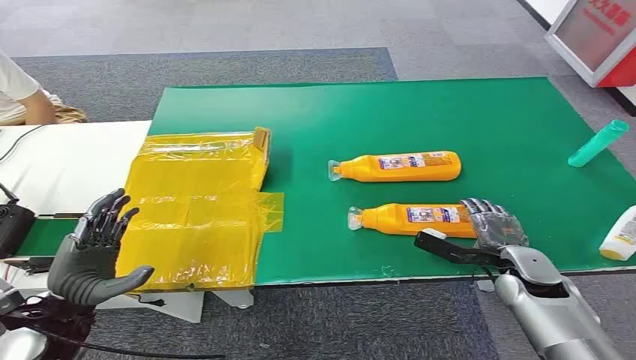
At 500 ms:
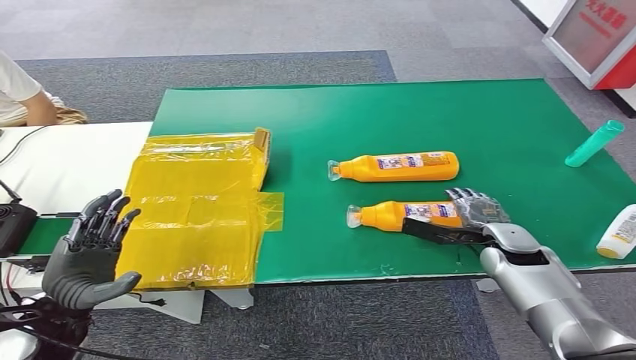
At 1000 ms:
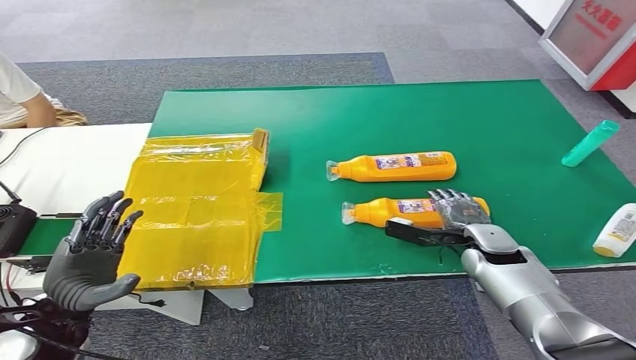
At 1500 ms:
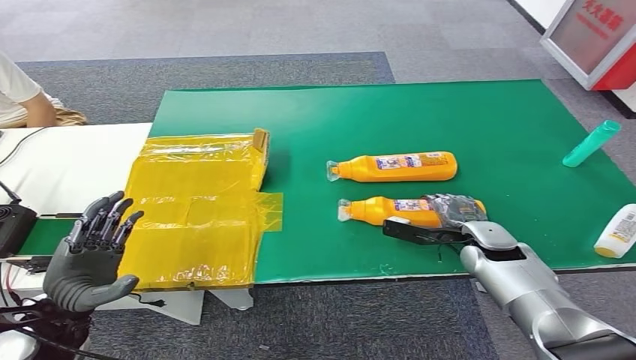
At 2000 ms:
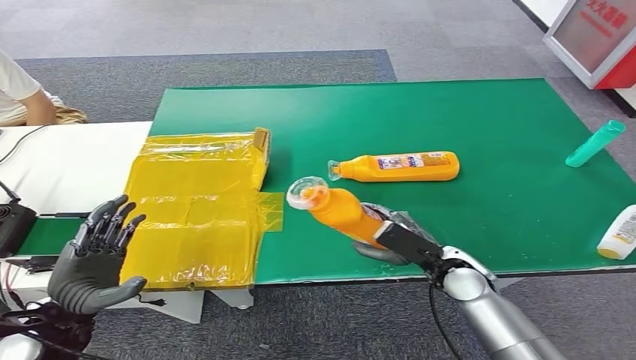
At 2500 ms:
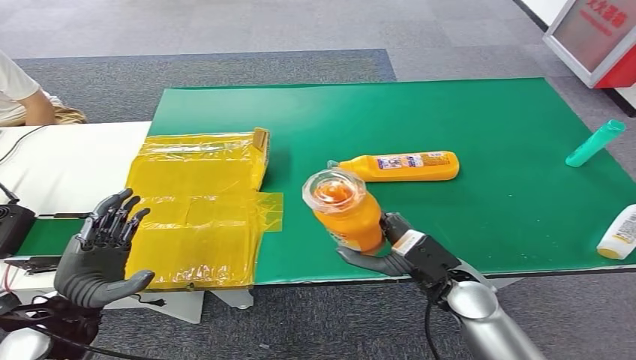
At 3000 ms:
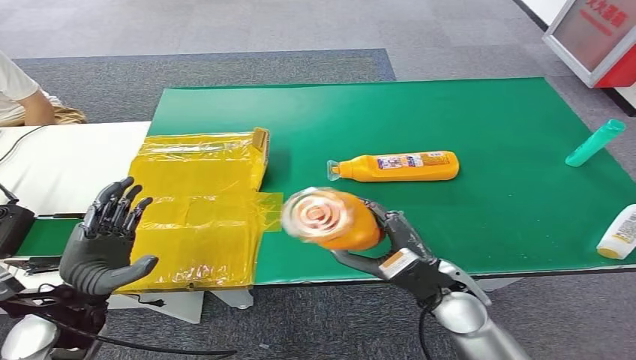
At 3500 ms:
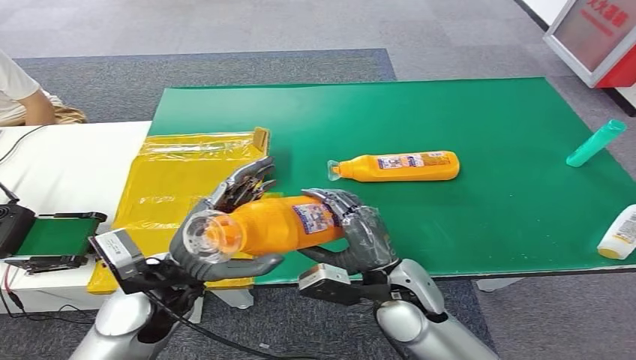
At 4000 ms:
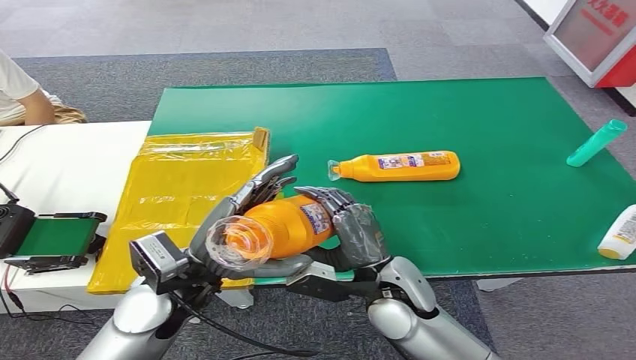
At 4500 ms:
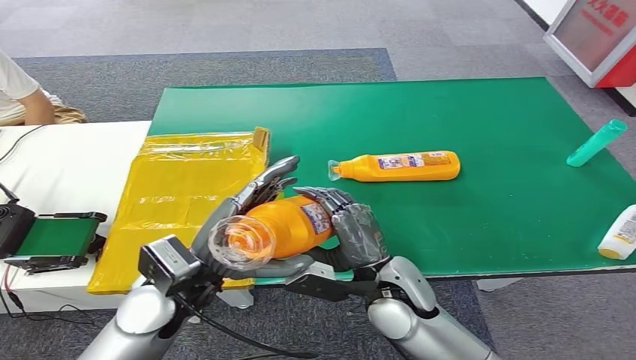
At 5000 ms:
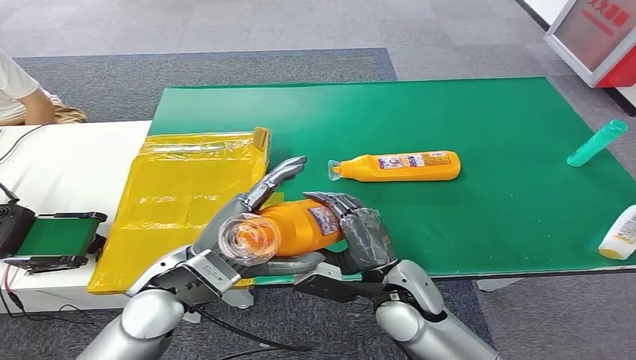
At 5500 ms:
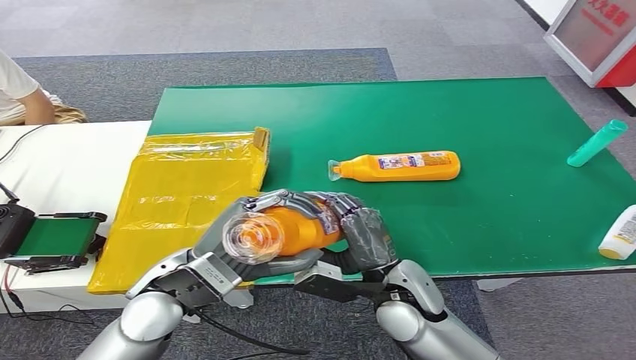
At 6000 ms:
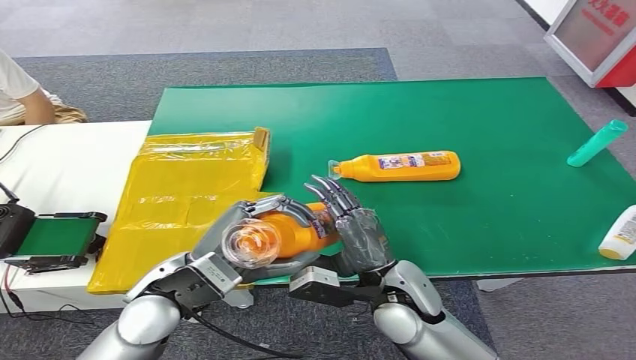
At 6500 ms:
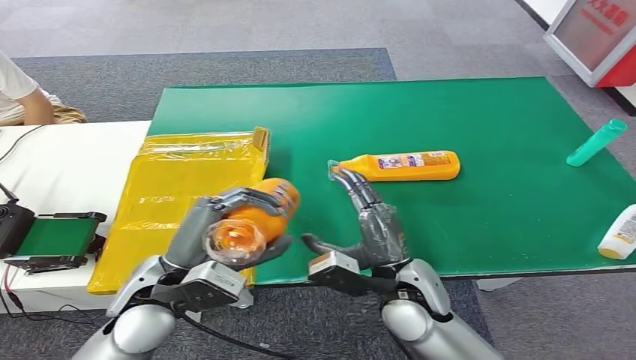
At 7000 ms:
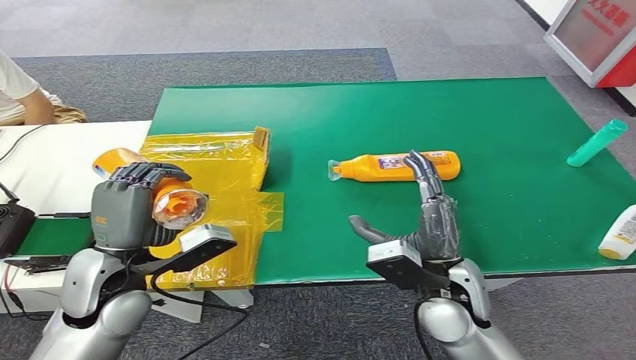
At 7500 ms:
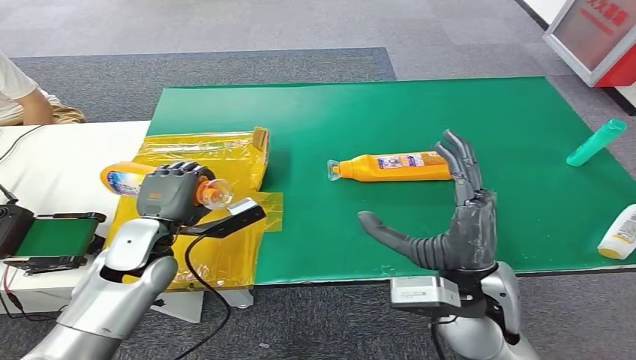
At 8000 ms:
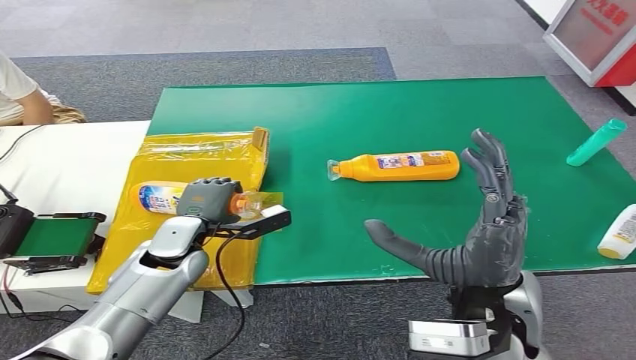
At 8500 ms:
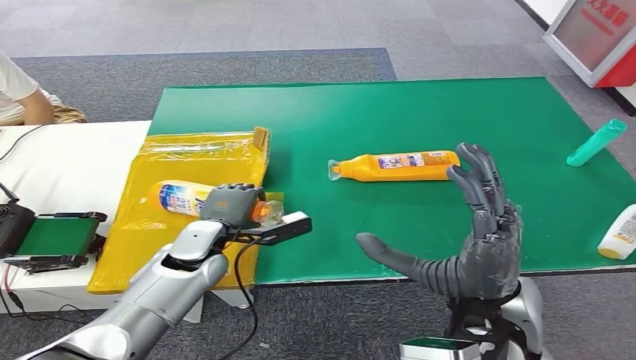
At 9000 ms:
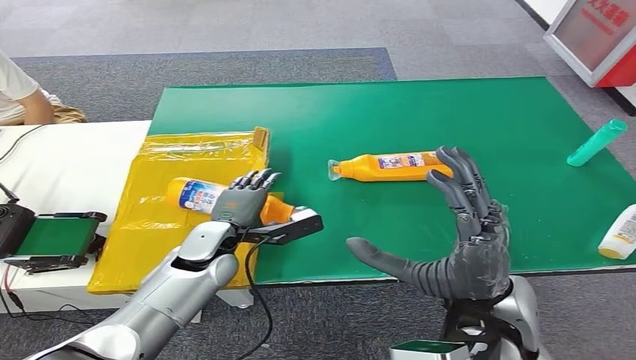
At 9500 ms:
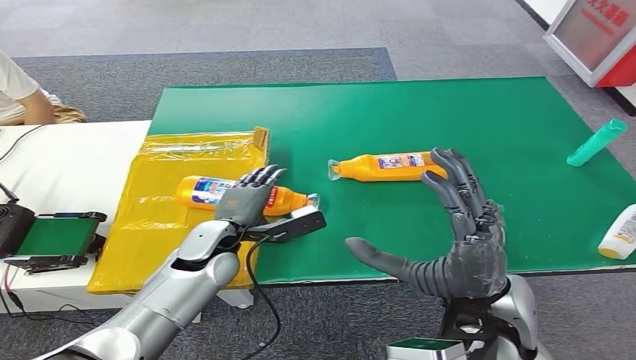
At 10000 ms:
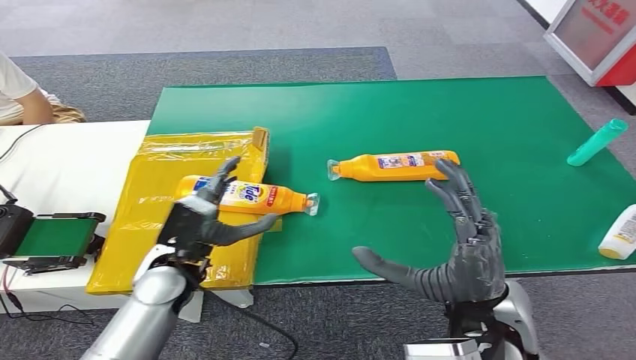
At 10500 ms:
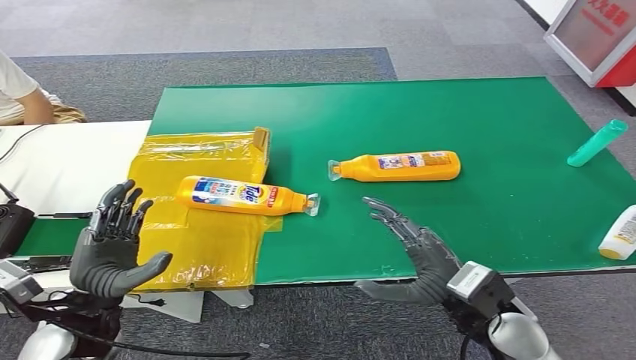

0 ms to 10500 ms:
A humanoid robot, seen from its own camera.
Step, 0 ms to 2500 ms: Pick up the bottle from the table.
Step, 4500 ms to 10500 ms: Turn the bottle to the front side.
6500 ms to 8500 ms: The right hand goes about 10 cm upward and to the right. Meanwhile the left hand travels forward and downward by some 15 cm.
8500 ms to 10500 ms: The left hand shifts some 15 cm backward and to the left; the right hand goes about 10 cm downward.

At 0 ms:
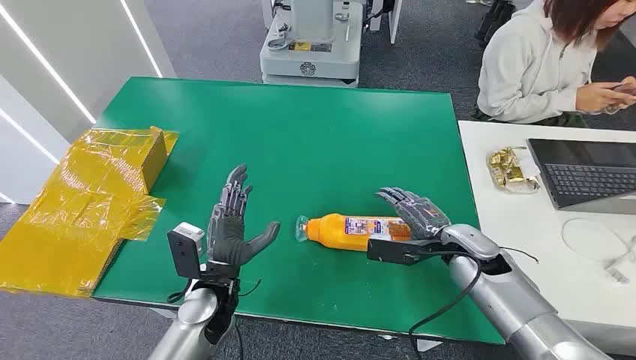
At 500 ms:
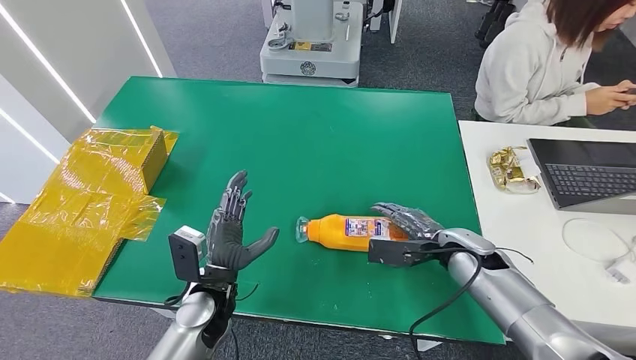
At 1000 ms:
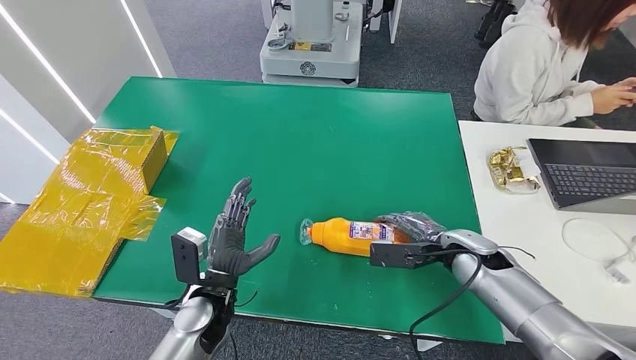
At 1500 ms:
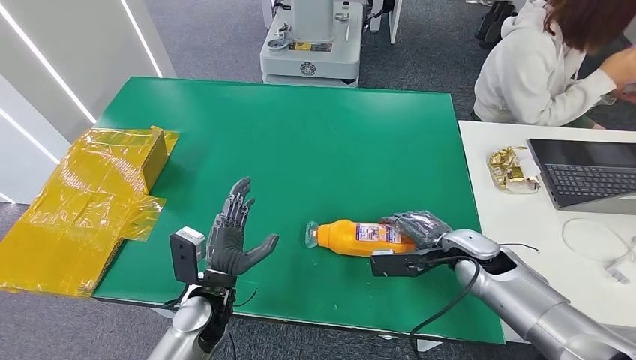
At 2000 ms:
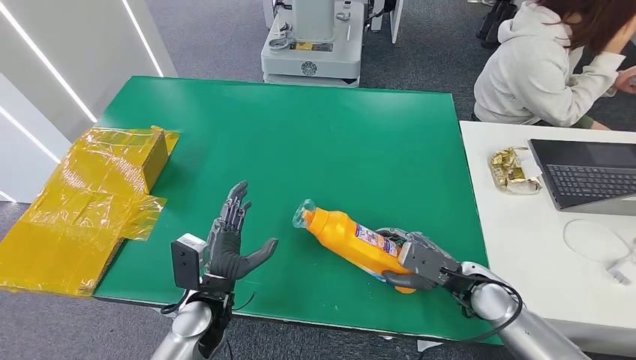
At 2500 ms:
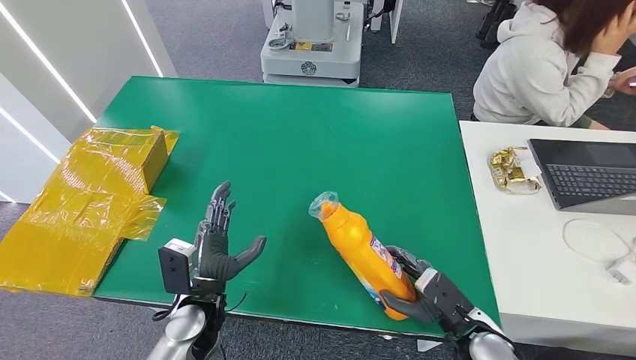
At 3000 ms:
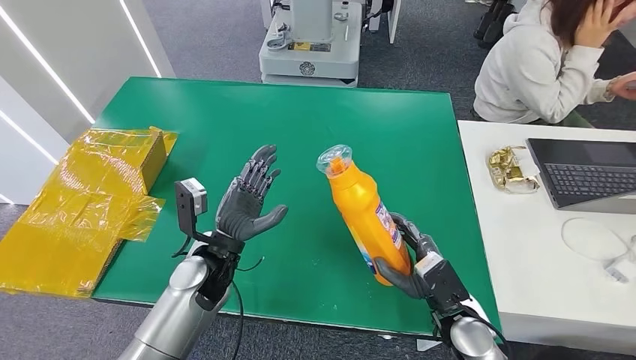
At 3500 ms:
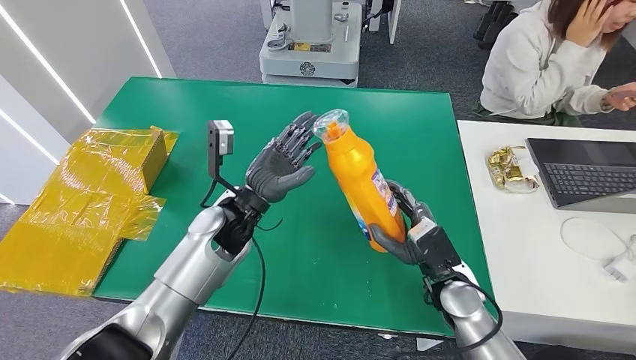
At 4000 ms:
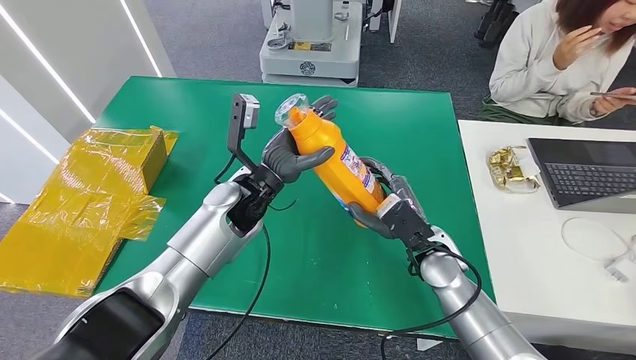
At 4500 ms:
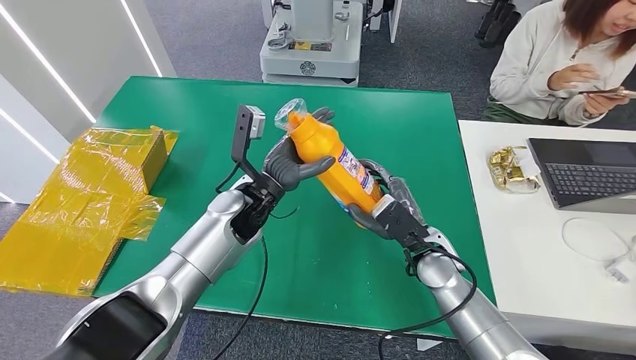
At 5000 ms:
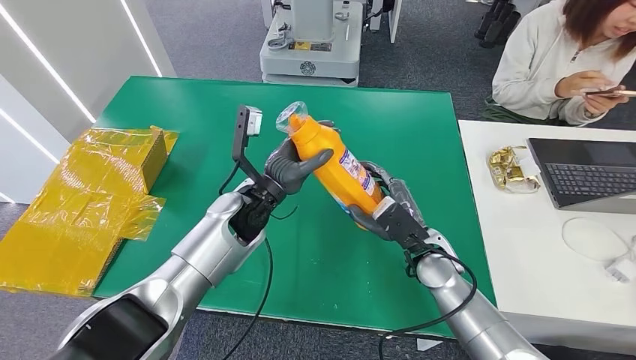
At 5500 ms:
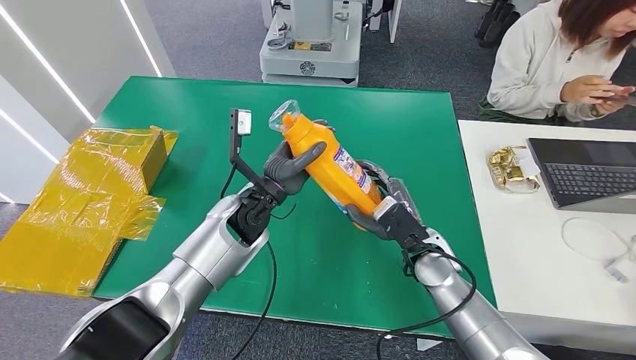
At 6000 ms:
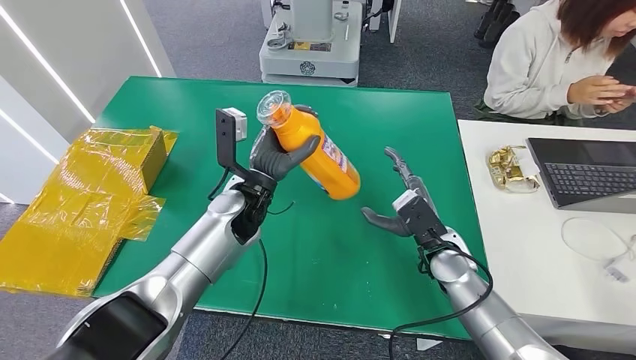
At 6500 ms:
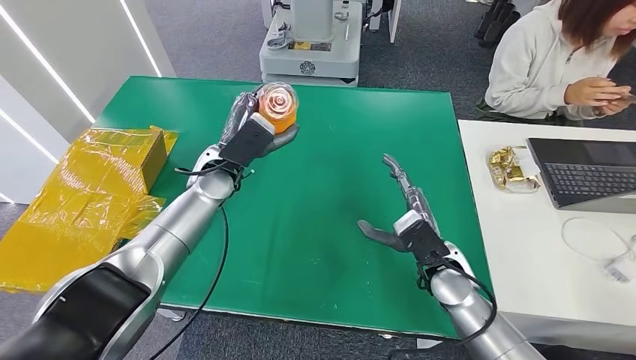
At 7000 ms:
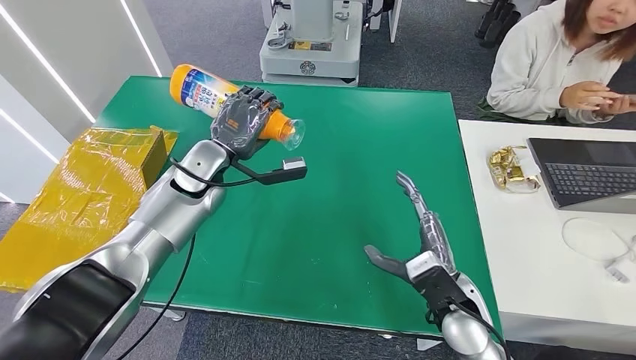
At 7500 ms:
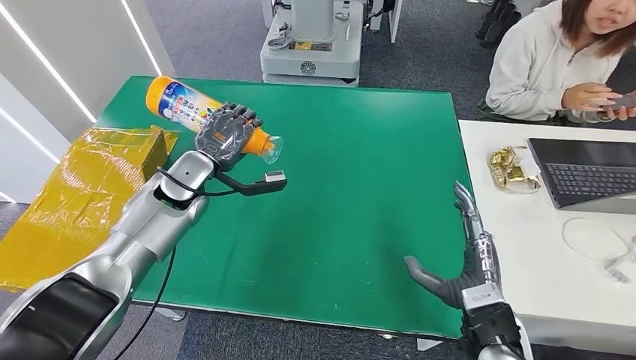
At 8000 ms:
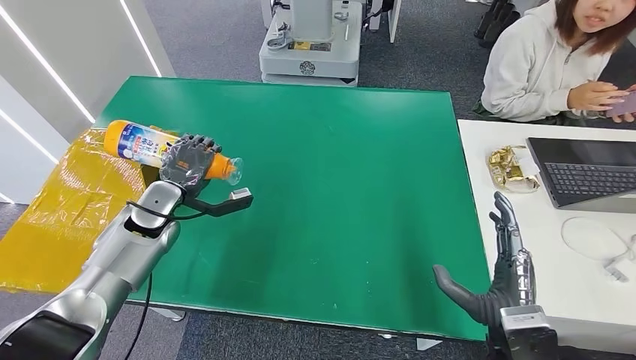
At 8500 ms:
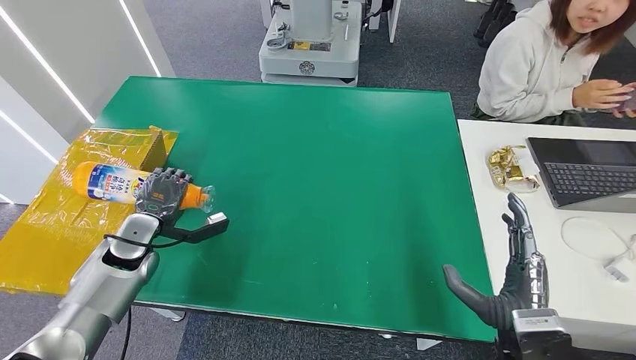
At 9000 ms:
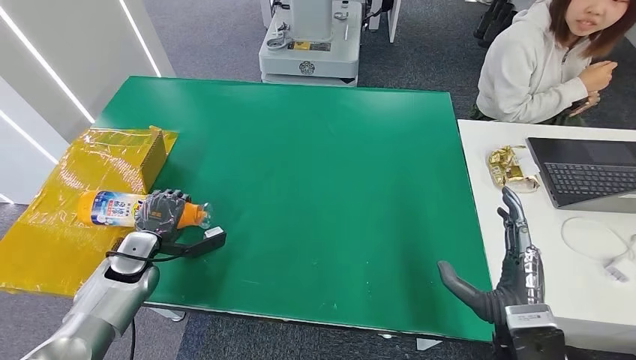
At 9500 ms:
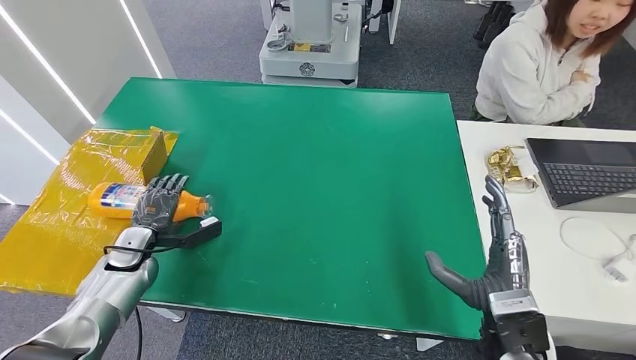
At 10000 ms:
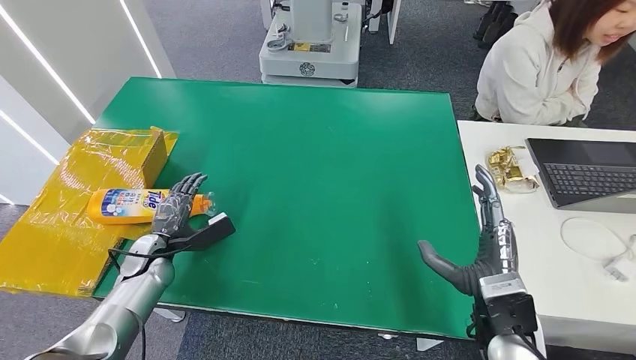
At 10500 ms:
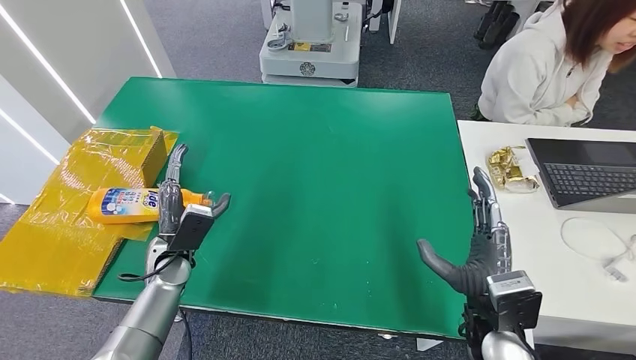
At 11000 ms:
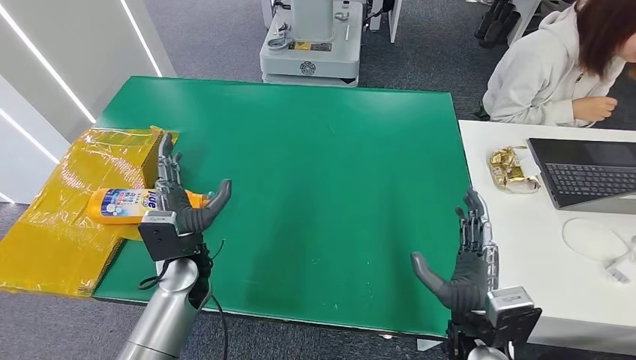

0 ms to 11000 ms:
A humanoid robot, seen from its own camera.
Step, 0 ms to 5000 ms: Pick up the bottle from the table.
Step, 5500 ms to 11000 ms: Turn the bottle to the front side.
3500 ms to 5500 ms: The right hand moves approximately 5 cm.
9000 ms to 11000 ms: The right hand ends up approximately 5 cm from where it was; the left hand goes about 15 cm to the right.
